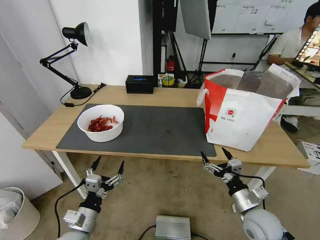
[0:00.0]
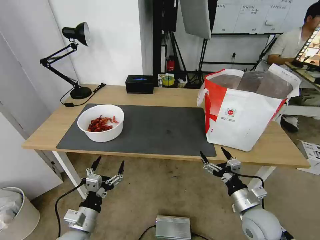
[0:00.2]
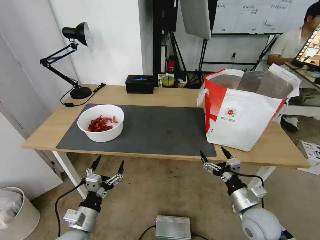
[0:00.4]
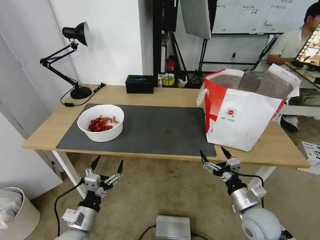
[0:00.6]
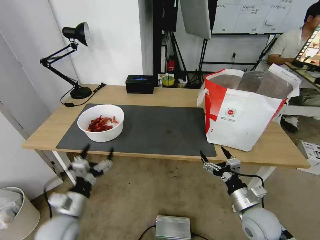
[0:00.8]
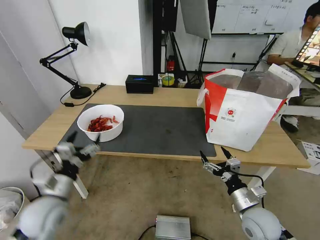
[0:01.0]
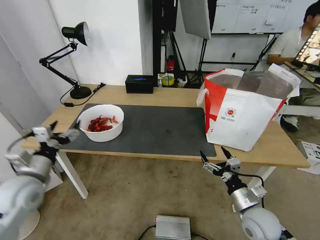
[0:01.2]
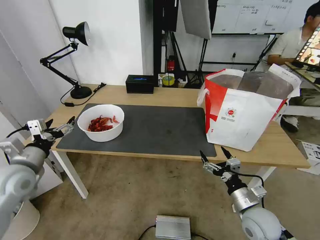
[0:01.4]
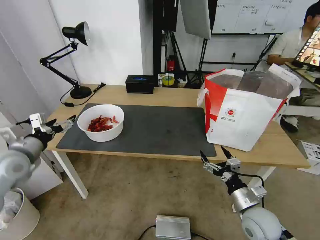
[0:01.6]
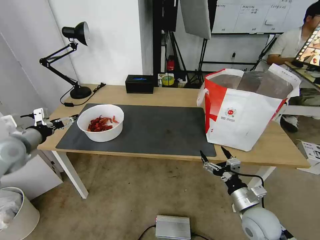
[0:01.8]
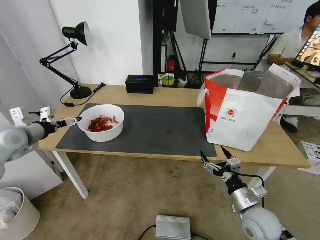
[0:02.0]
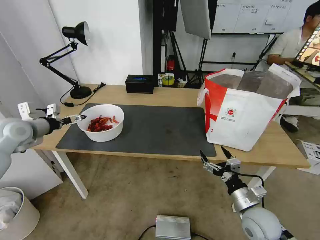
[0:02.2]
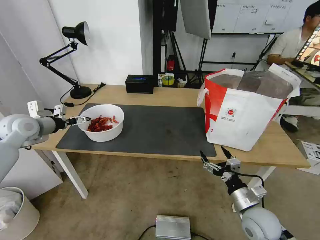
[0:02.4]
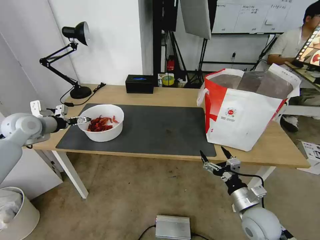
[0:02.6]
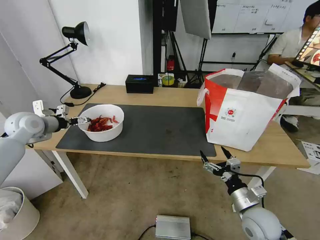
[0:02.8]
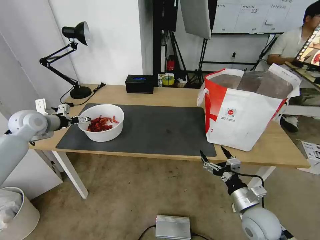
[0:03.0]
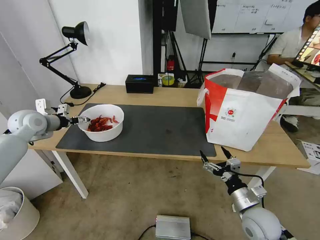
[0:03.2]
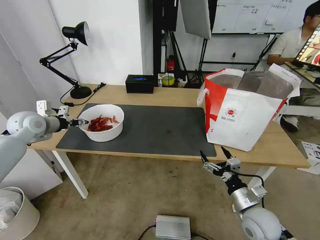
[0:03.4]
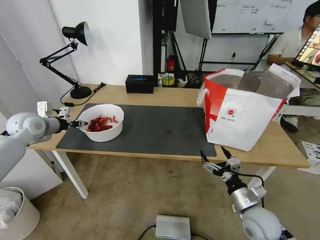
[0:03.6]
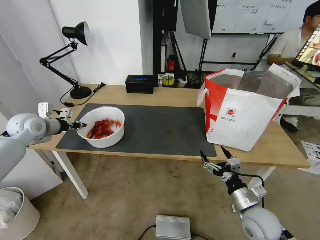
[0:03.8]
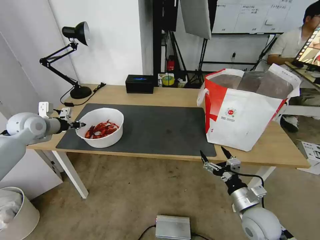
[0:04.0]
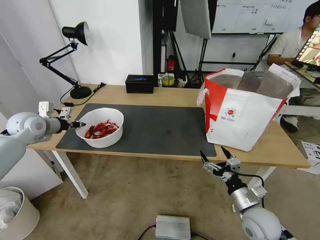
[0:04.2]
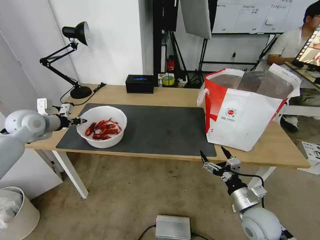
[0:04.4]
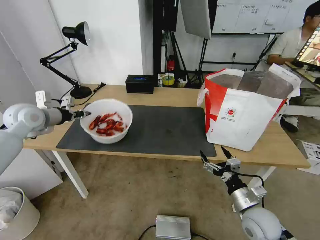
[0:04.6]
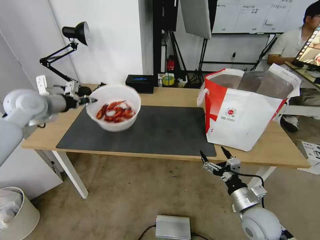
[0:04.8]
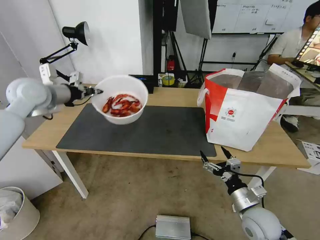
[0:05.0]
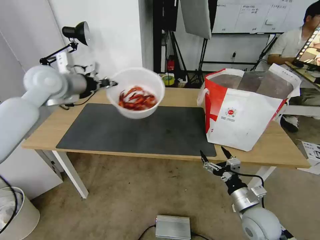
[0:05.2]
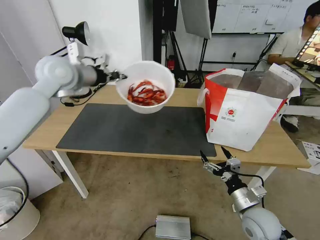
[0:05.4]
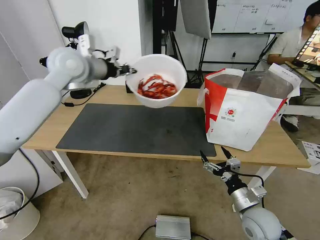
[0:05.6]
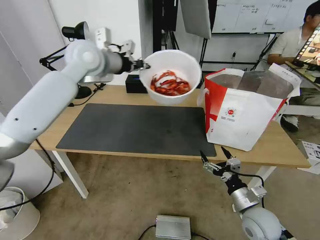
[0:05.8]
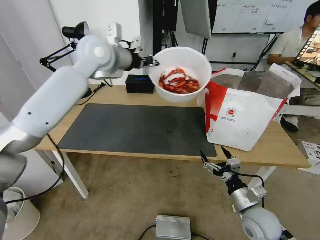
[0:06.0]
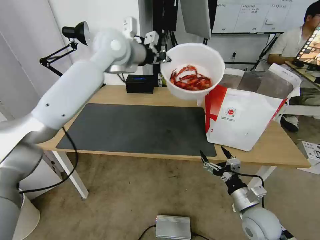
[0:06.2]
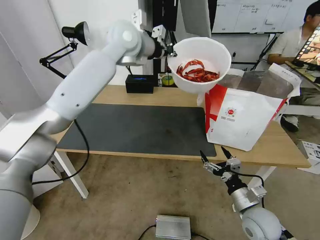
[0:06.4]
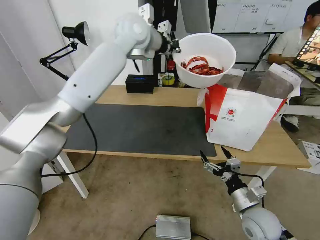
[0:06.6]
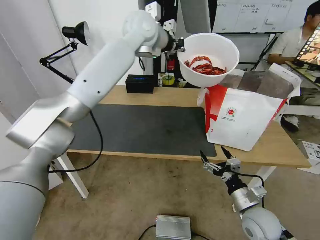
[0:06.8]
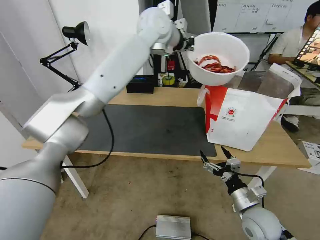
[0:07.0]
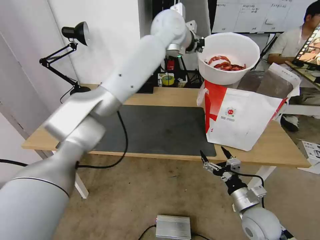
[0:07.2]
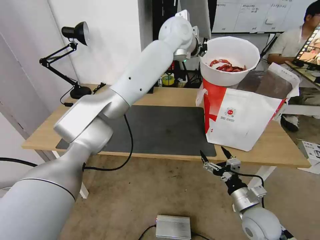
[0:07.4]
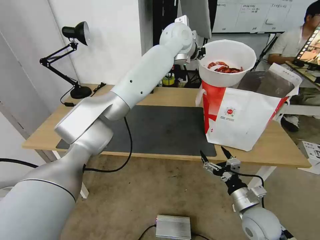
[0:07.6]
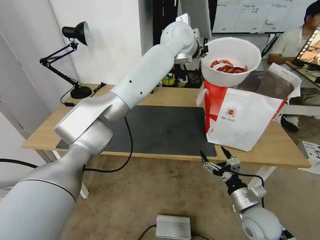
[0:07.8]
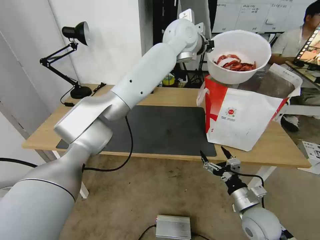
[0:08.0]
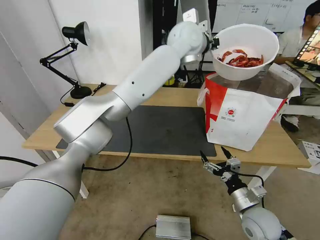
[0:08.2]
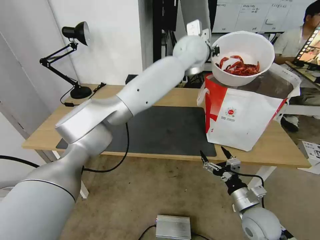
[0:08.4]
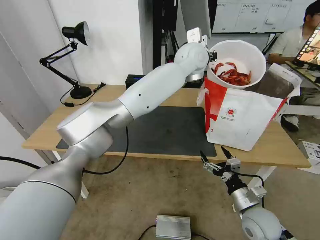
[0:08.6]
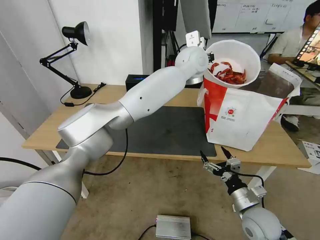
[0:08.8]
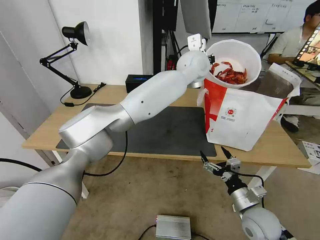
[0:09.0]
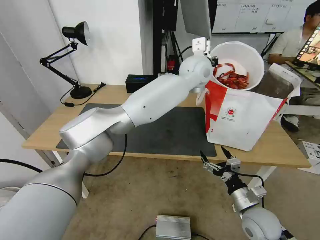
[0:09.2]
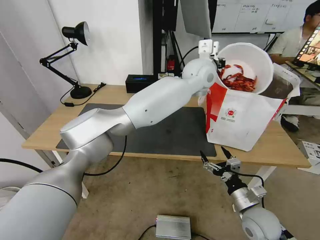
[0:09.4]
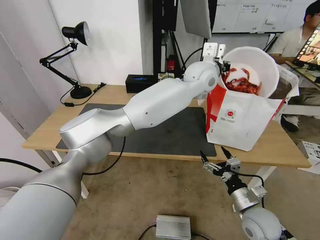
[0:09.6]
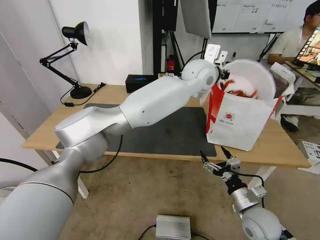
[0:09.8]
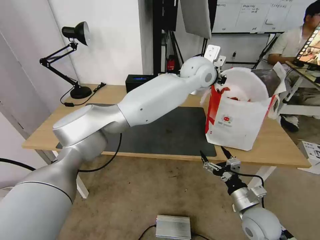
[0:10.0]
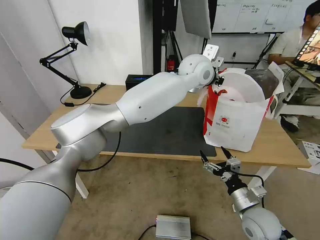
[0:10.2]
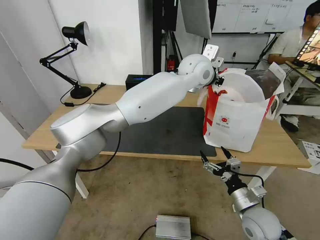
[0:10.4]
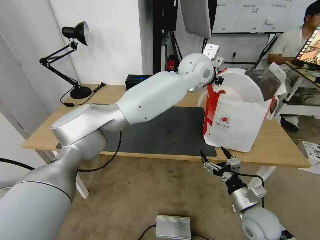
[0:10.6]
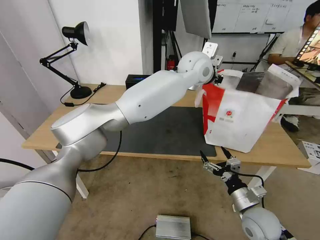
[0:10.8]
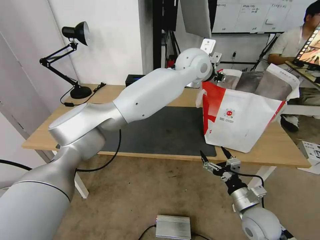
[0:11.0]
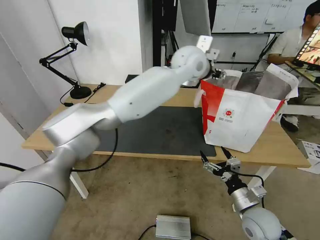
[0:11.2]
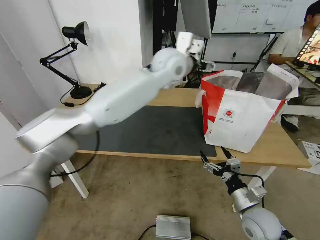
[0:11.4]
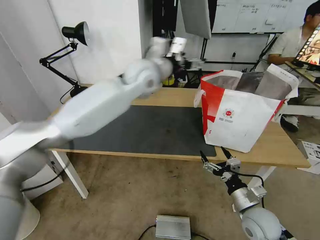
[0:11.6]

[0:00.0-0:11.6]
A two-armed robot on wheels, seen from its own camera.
Task of the whole recording: Pick up the trash from the table and place it into the takeout bag.
0:00.0 to 0:01.4: The left gripper travels to the left, upward and forward by roughly 25 cm.
0:01.4 to 0:02.8: The left gripper goes about 15 cm forward.
0:02.8 to 0:04.4: The left gripper closes.
0:04.4 to 0:05.8: The left gripper goes about 30 cm to the right and upward.
0:05.8 to 0:07.2: The left gripper moves to the right, some 20 cm.
0:07.2 to 0:08.8: The left gripper heads downward and to the right, covering about 10 cm.
0:10.2 to 0:11.6: The left gripper is displaced to the left by approximately 15 cm, and opens its fingers.

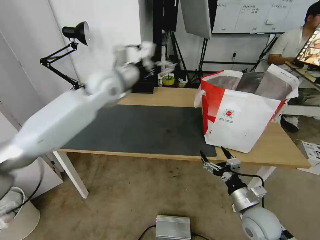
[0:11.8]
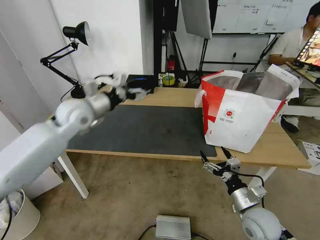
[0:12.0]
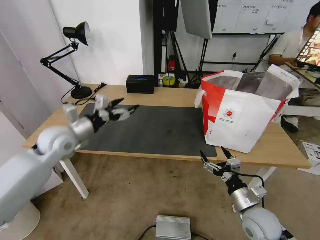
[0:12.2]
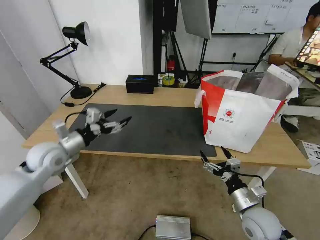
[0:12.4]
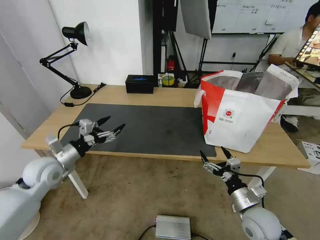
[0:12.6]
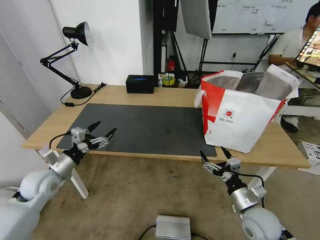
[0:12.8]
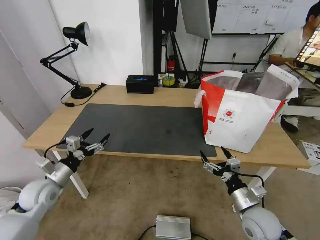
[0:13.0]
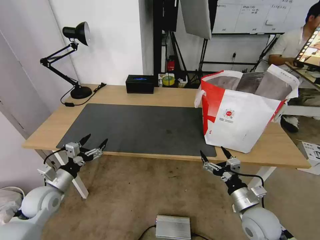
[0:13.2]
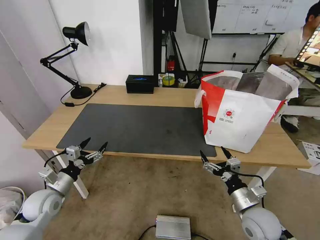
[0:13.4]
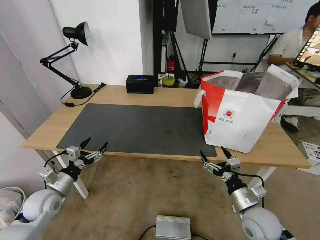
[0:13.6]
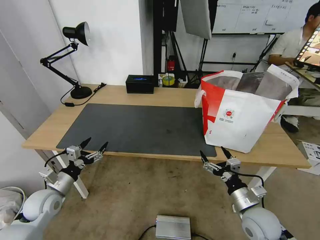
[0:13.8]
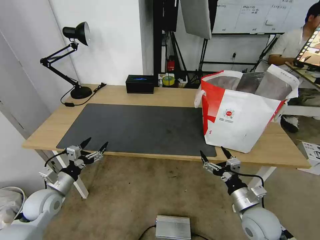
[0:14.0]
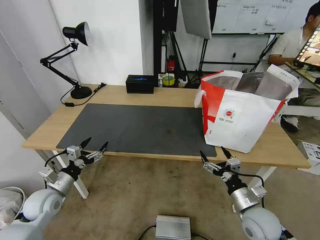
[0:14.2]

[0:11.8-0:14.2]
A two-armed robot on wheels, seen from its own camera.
Task of the whole recording: Pick up the trash from the table and place it into the takeout bag.
0:11.8 to 0:13.0: The left gripper is displaced downward, to the left and backward by roughly 40 cm.
0:13.0 to 0:14.2: The grippers make only small movements.

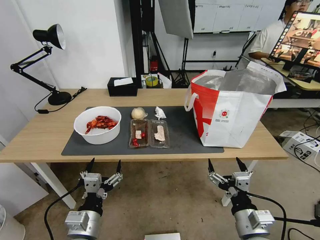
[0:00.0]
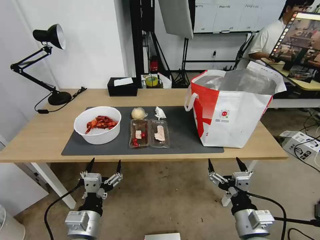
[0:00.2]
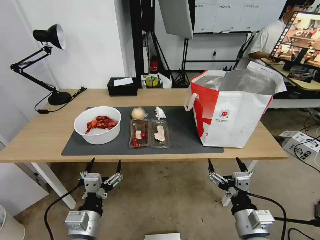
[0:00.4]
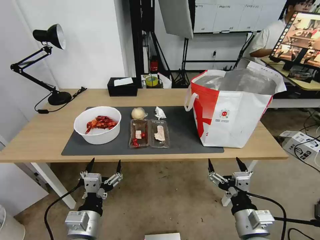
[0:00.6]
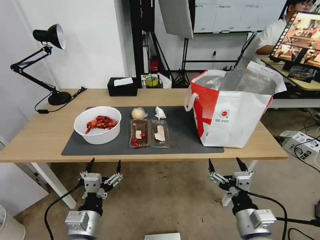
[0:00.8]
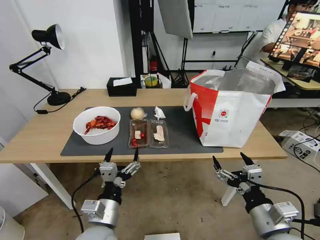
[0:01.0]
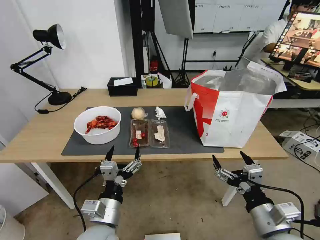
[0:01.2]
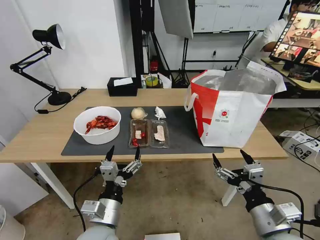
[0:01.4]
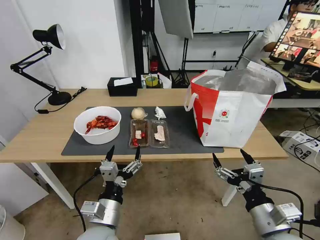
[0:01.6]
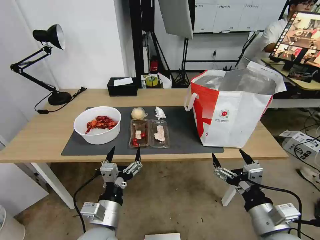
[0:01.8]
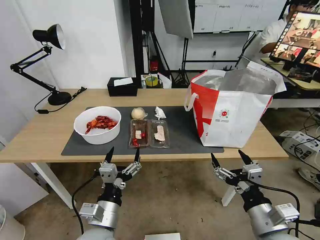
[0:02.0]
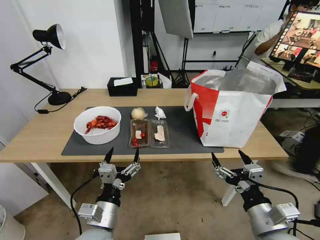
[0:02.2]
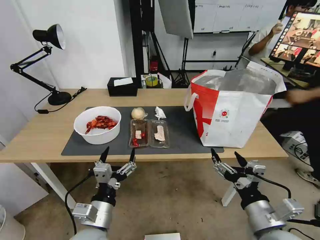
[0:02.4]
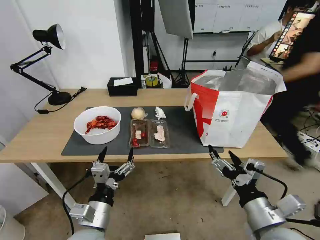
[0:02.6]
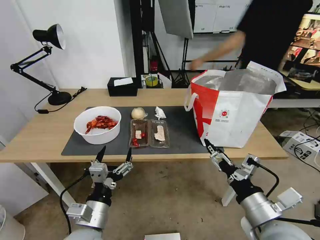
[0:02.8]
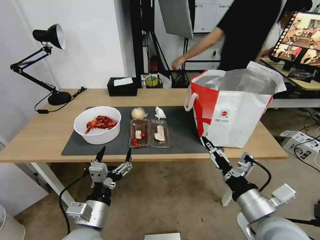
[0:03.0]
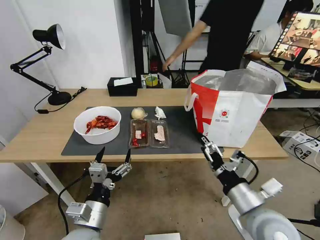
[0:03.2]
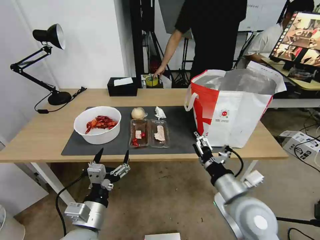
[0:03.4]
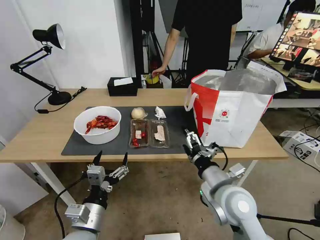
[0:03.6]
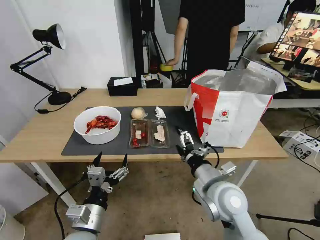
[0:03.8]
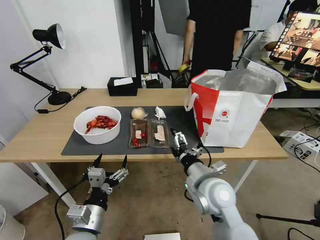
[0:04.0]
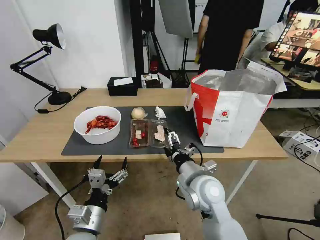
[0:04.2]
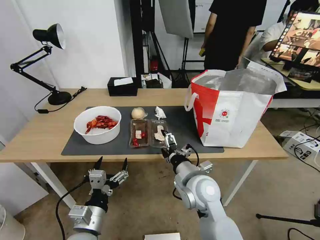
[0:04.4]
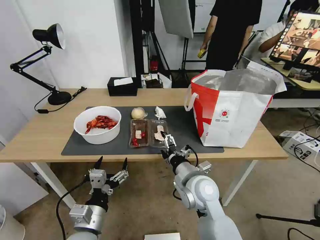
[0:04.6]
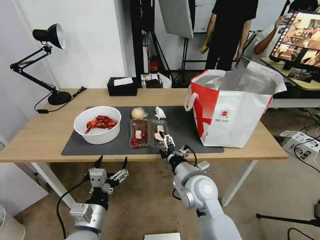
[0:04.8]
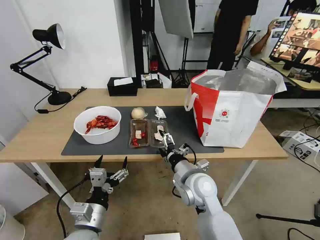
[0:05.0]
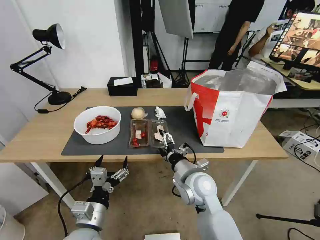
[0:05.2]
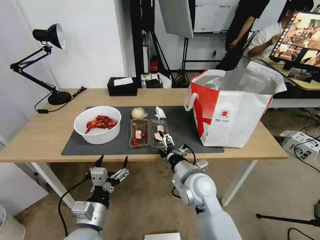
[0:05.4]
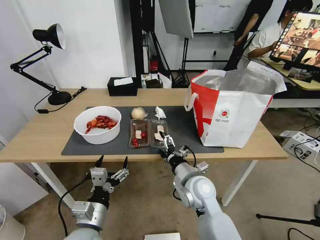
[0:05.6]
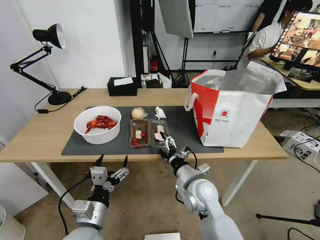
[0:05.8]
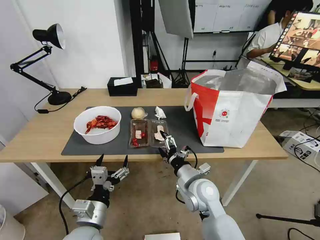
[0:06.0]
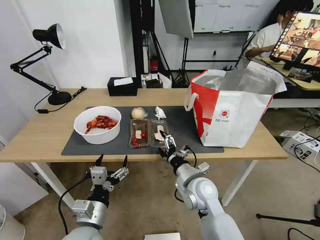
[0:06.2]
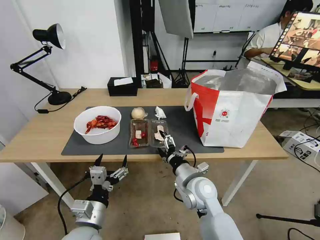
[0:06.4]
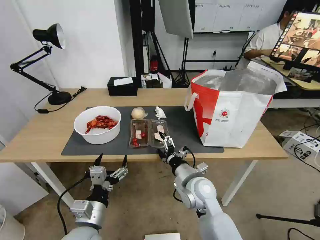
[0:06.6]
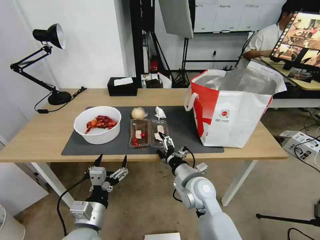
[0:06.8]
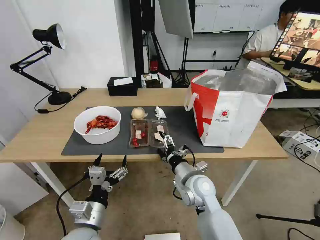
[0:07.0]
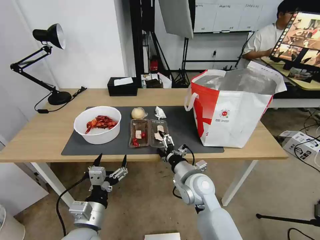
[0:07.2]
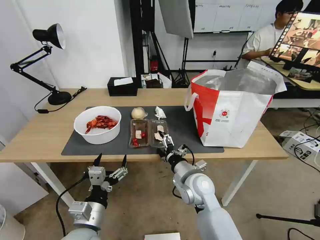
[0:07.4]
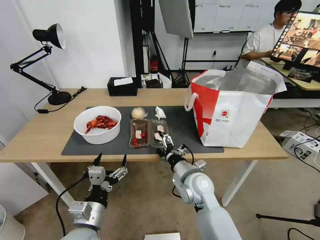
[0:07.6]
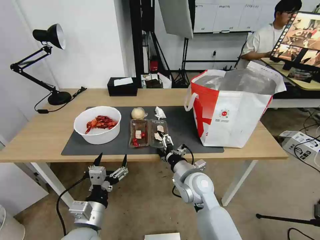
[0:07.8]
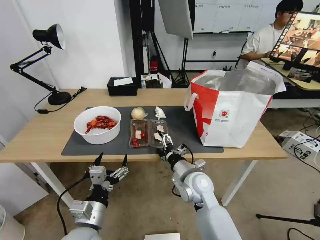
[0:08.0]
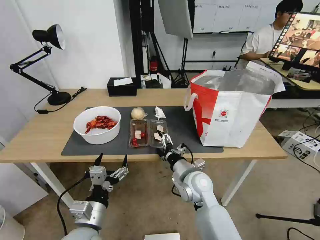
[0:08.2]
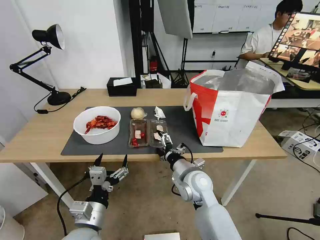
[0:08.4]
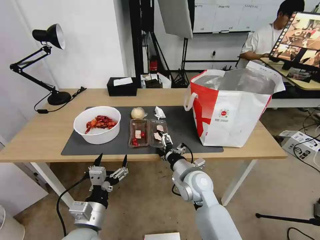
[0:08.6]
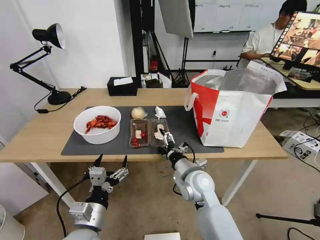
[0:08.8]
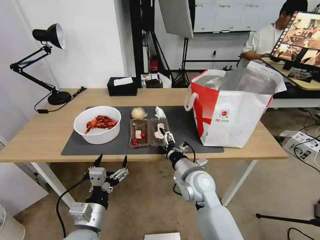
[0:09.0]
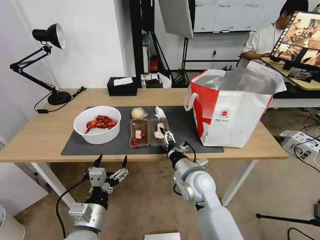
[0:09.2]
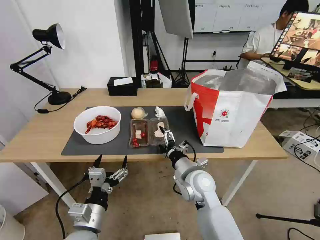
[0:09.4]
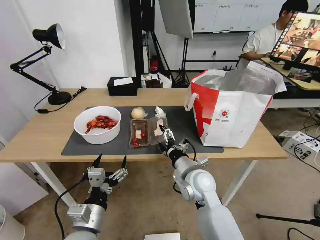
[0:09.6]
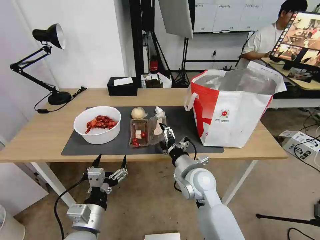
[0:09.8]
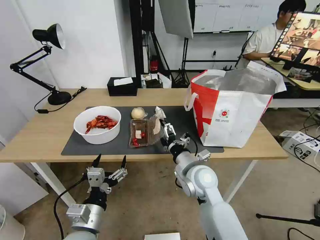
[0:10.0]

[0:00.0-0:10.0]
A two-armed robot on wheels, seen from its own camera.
Task of the whole recording: Pick up the trash from the table and place it into the takeout bag.
0:02.8 to 0:04.2: The right gripper moves to the left and forward, about 20 cm.
0:04.2 to 0:05.8: The right gripper moves downward, roughly 5 cm.
0:05.8 to 0:07.2: The grippers move only a little.
0:07.2 to 0:08.6: Neither gripper changes place.
0:08.6 to 0:10.0: The grippers make only small movements.
